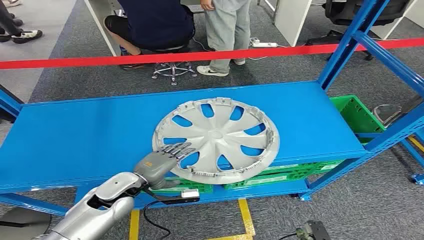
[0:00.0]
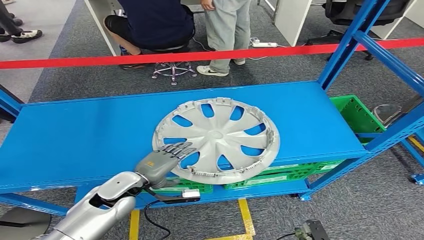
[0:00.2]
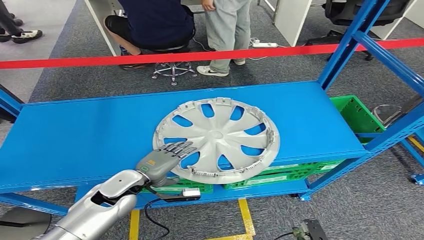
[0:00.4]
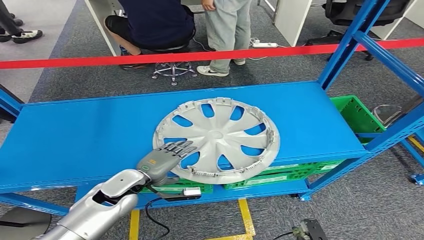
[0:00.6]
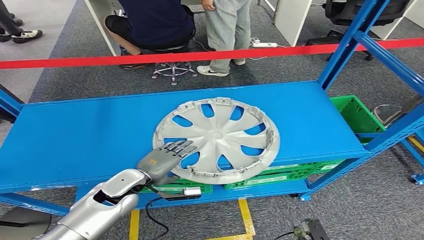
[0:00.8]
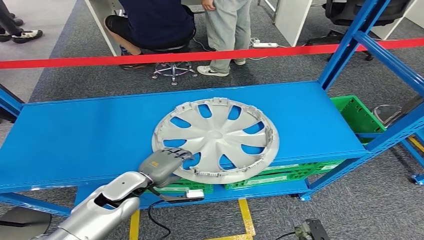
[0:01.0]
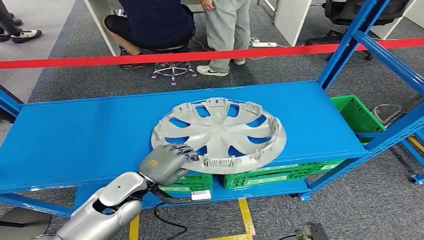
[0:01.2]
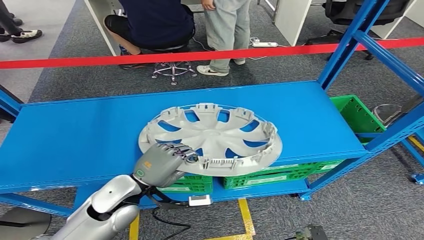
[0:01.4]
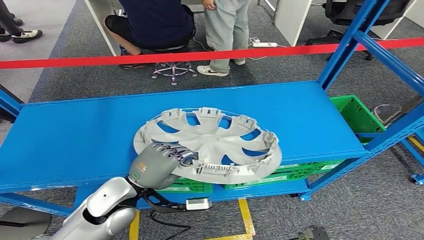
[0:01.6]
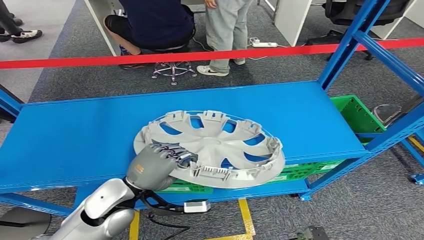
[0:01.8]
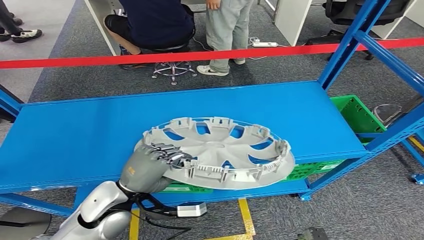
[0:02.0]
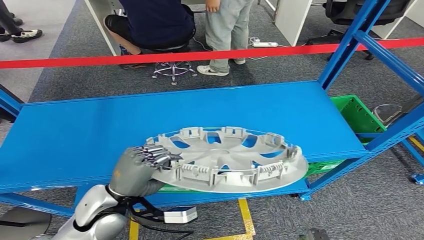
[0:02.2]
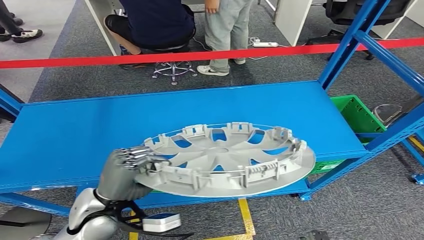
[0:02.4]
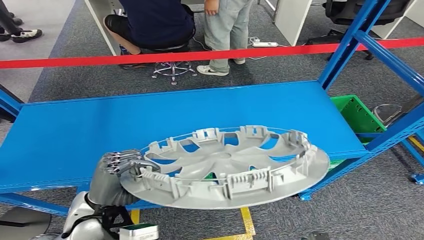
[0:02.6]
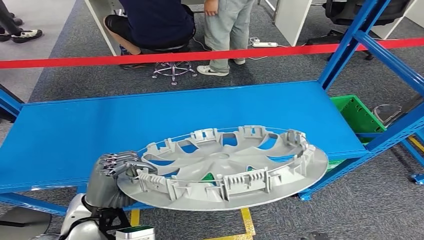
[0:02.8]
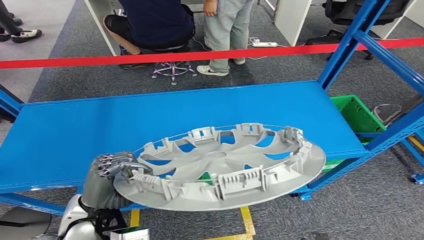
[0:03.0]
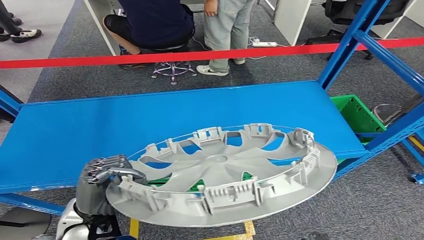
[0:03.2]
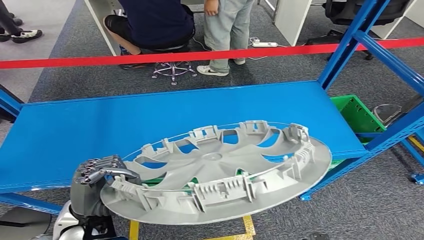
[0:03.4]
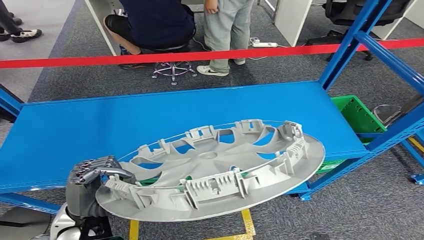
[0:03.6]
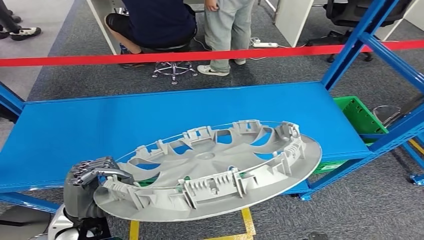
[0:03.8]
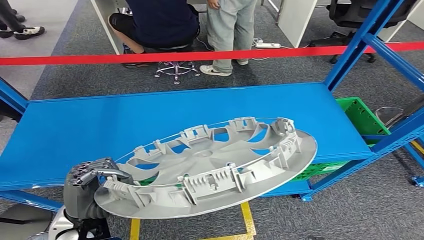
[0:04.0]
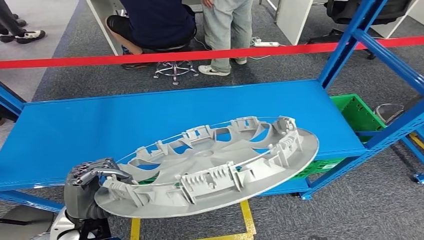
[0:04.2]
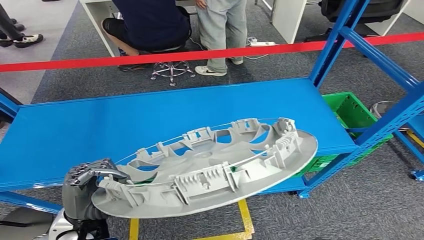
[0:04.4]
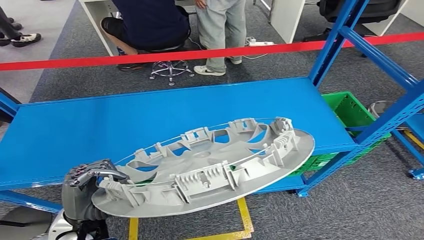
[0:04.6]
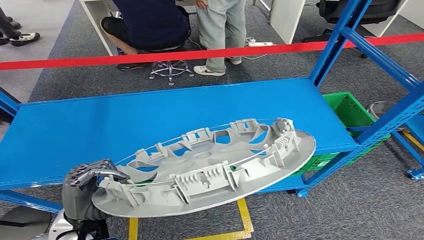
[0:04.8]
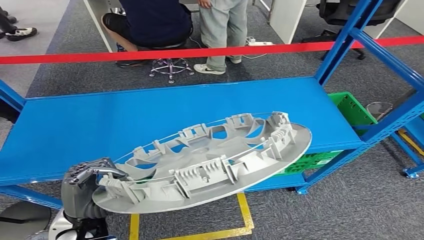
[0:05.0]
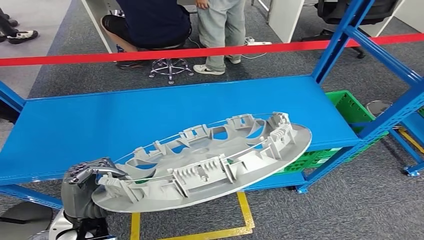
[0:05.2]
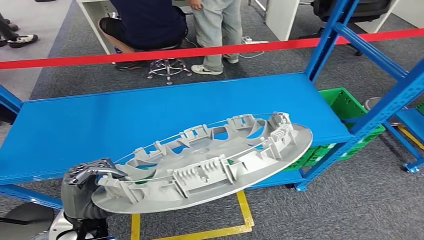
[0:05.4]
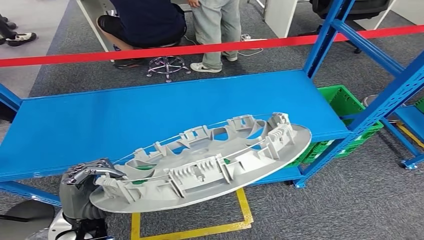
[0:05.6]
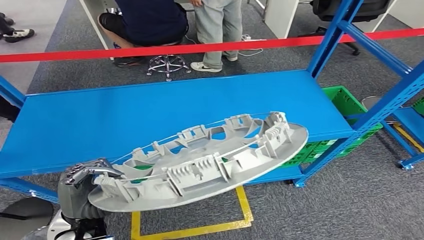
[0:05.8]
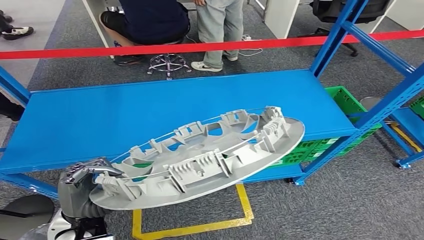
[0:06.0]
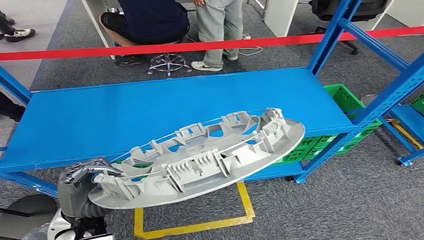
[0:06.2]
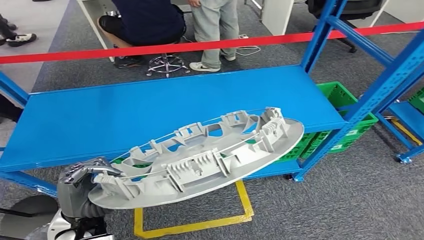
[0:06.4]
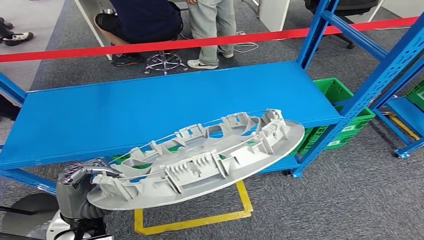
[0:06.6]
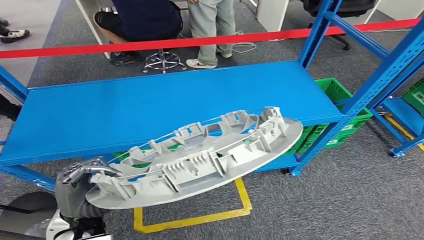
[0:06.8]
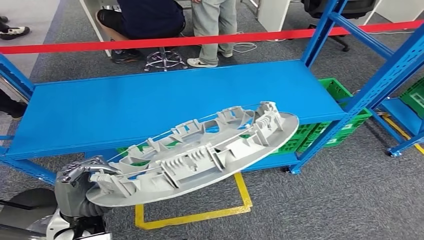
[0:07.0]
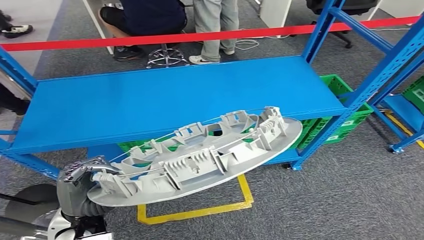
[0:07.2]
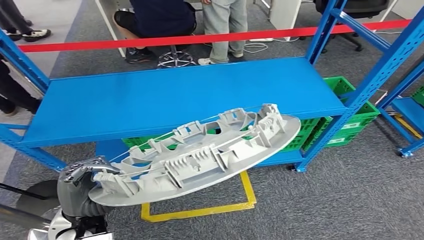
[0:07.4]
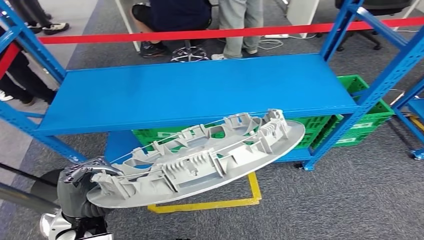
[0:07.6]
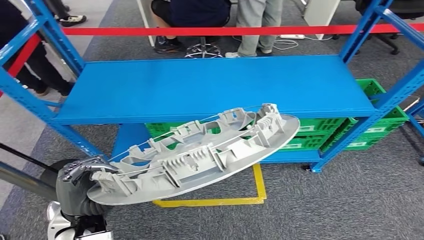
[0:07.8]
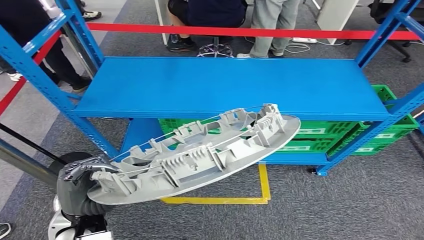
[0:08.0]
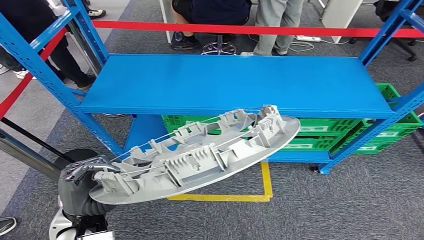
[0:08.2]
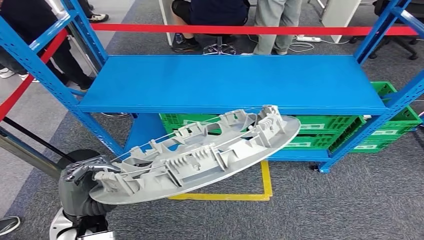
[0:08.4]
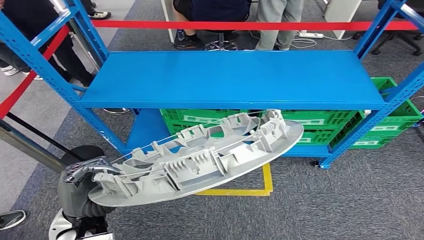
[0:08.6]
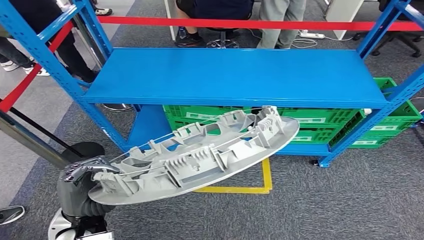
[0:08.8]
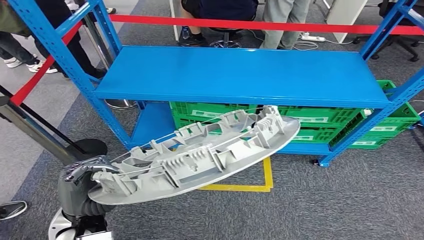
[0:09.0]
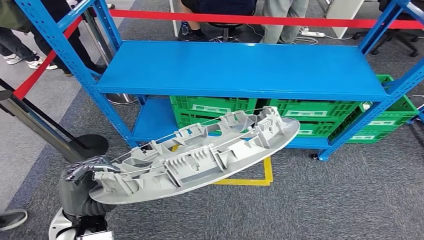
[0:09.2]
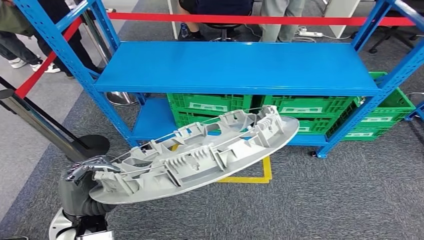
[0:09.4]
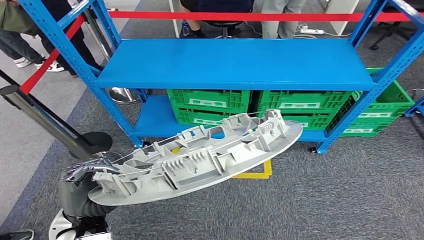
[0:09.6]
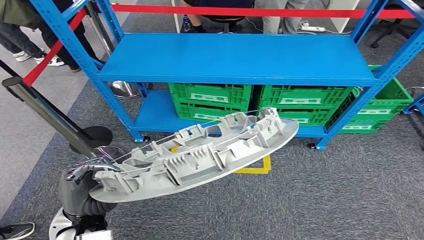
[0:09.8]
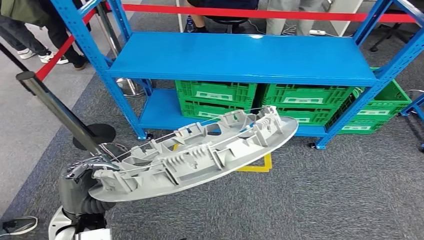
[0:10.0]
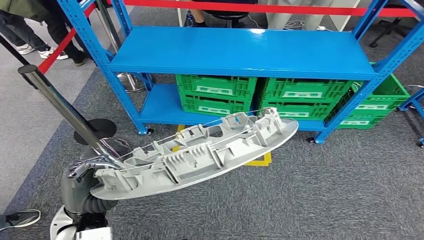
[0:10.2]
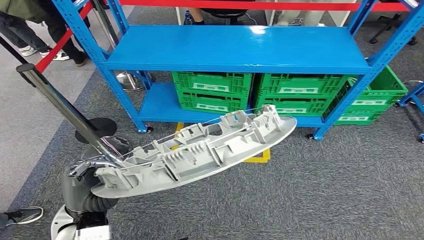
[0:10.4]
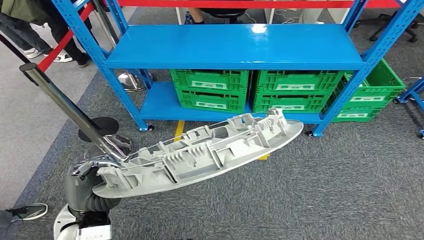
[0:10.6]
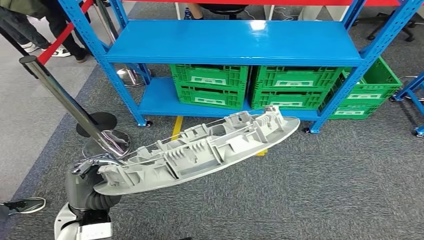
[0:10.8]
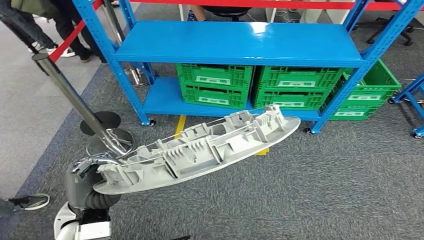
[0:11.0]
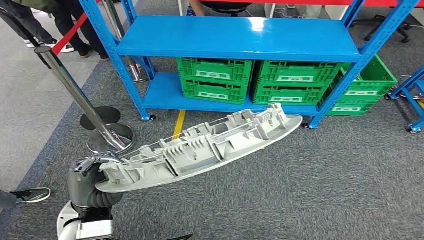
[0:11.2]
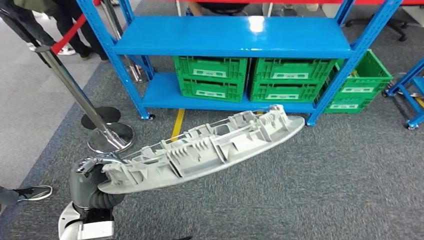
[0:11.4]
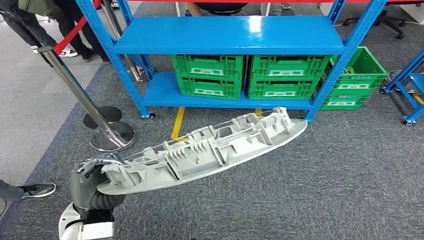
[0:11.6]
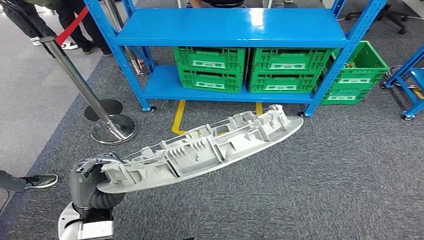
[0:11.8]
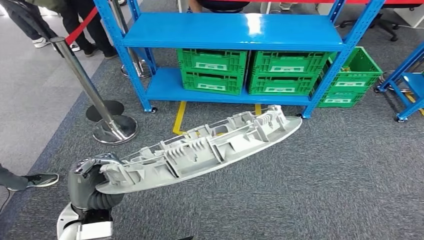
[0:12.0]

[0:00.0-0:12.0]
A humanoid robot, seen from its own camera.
Step, 0:00.0 to 0:04.8: Pick up the small component from the shelf.
0:01.6 to 0:03.0: The left hand shifts by roughly 5 cm.

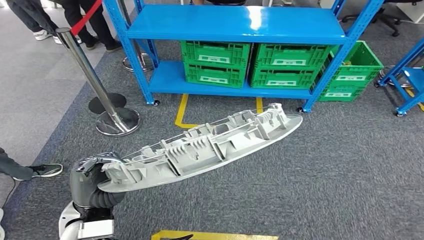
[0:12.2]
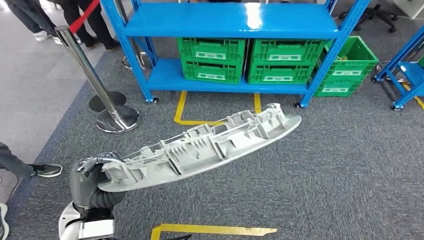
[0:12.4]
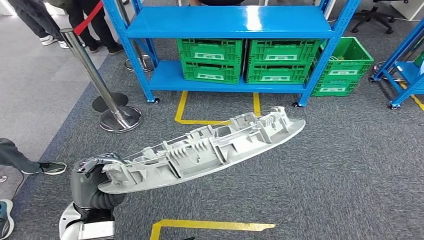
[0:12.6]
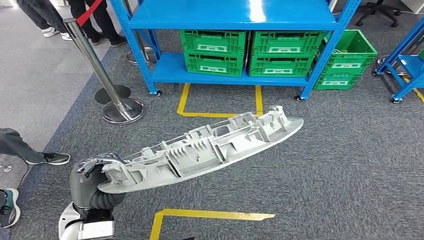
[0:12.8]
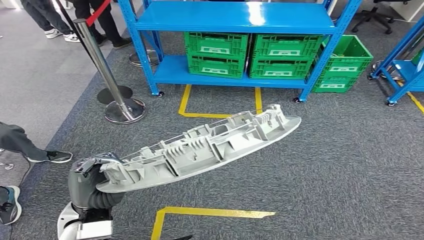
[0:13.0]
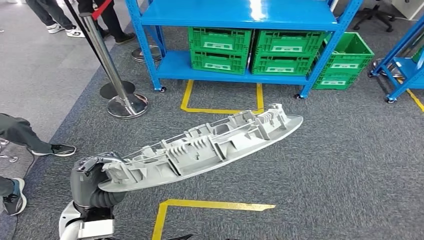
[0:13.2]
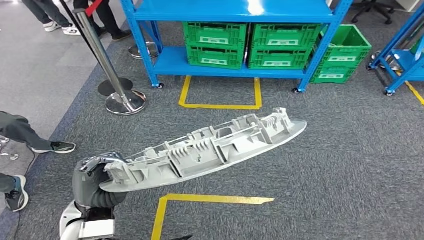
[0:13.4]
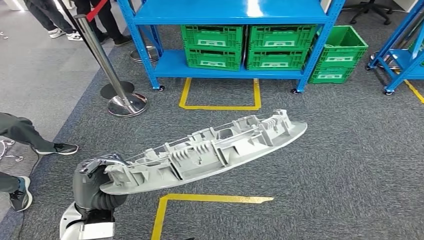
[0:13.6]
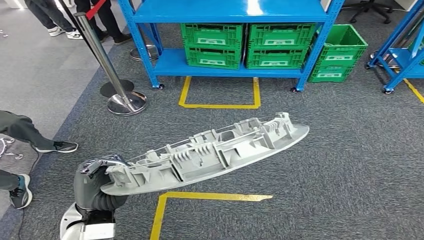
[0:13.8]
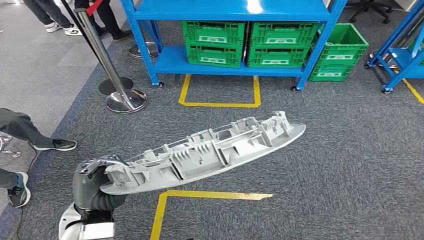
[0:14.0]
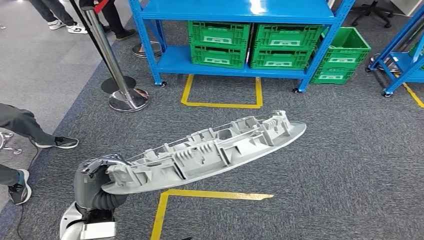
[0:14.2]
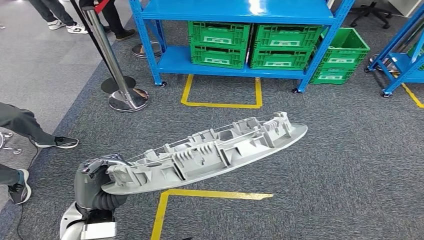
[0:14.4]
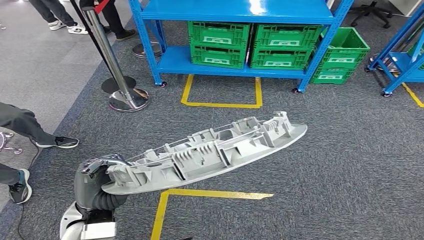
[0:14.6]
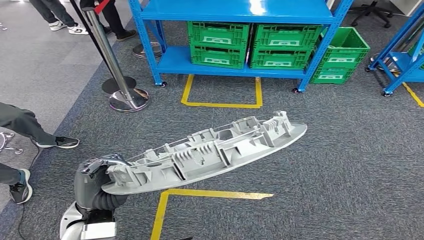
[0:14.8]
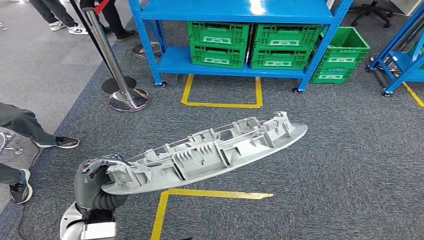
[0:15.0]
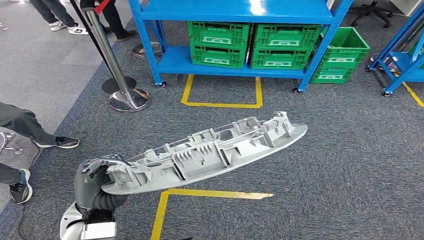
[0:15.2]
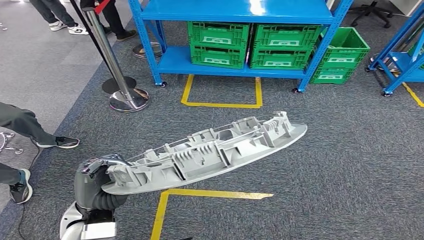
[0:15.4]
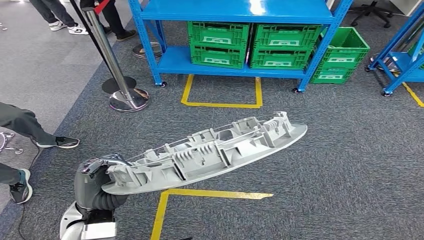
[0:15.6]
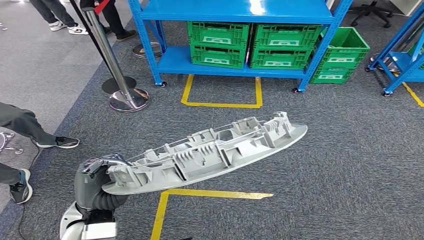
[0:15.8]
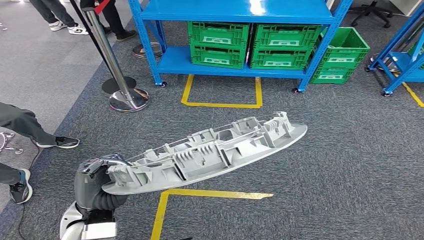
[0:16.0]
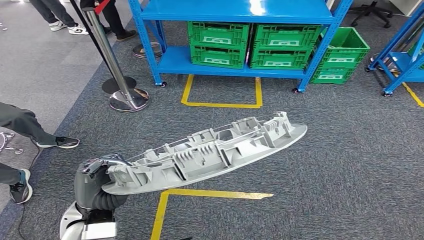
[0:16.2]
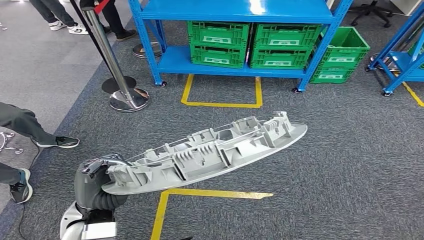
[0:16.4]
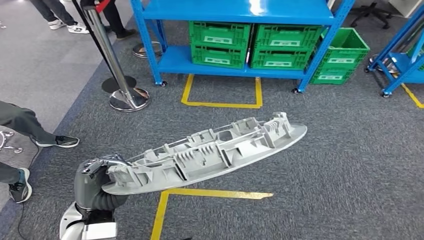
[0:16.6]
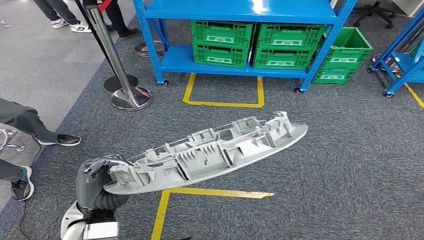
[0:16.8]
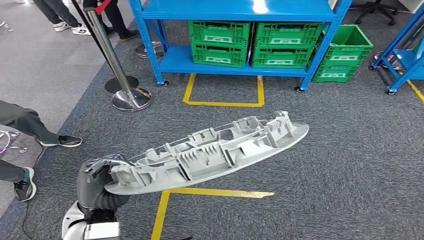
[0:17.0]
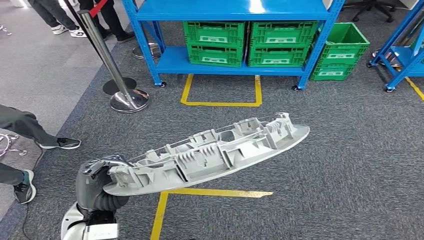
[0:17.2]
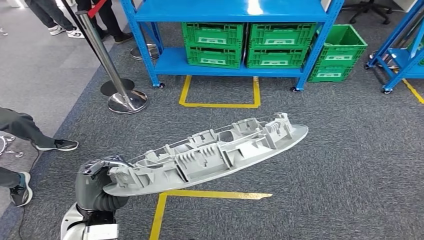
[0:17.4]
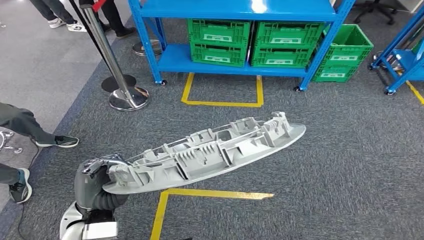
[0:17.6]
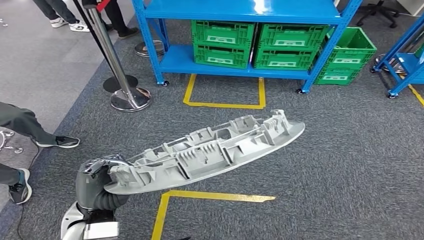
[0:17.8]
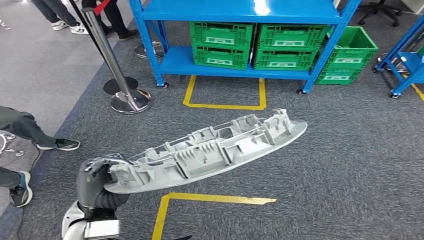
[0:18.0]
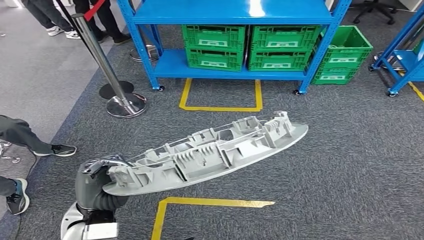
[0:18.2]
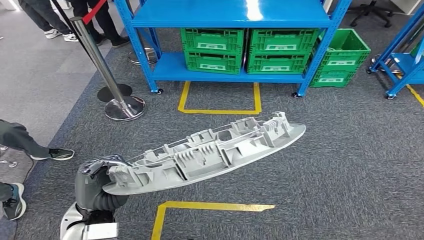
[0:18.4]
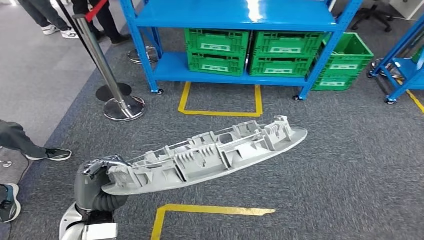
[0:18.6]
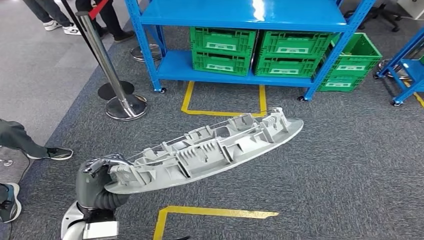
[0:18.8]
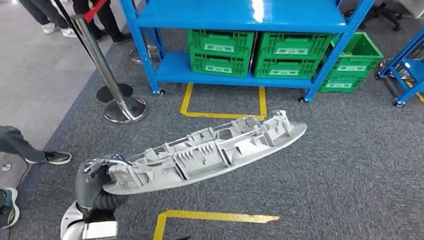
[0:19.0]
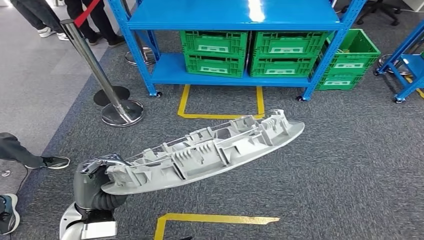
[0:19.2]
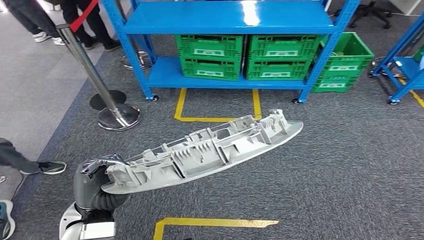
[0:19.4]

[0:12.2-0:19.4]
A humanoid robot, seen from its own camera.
0:15.0 to 0:18.0: Both hands stay put.
